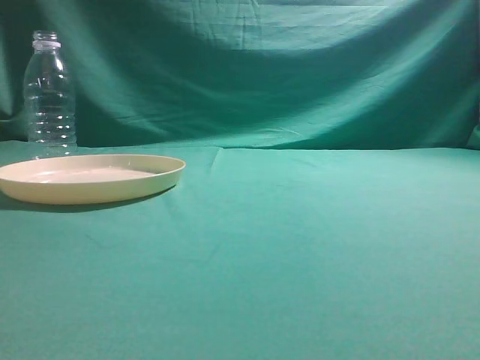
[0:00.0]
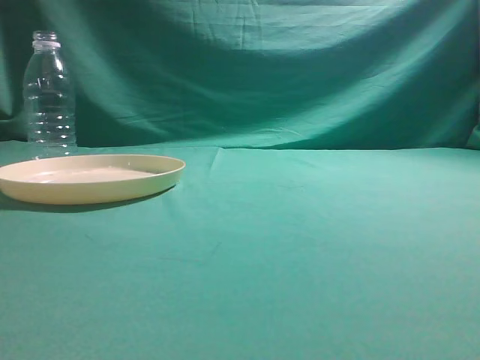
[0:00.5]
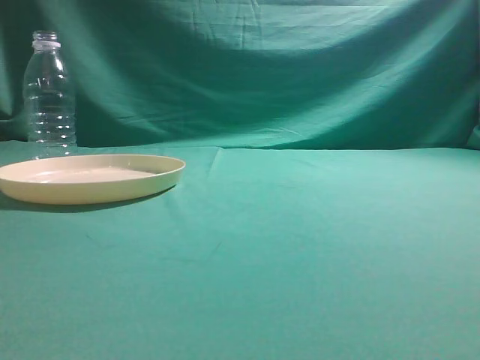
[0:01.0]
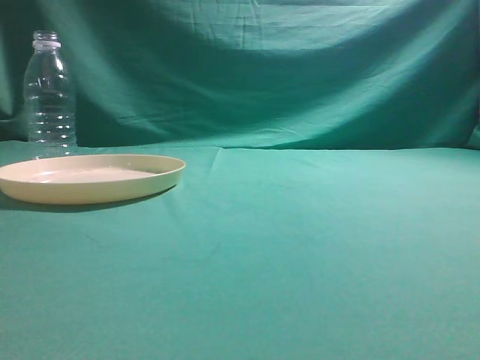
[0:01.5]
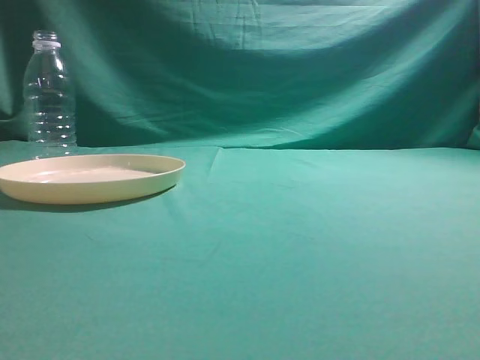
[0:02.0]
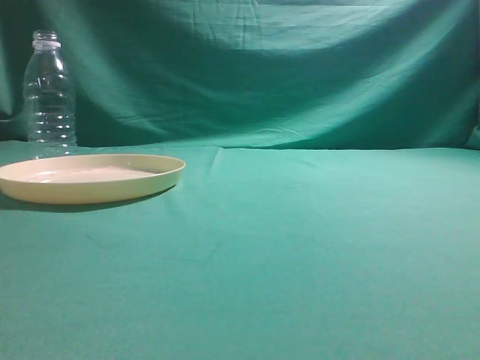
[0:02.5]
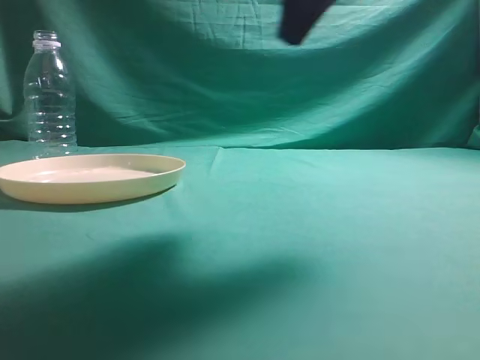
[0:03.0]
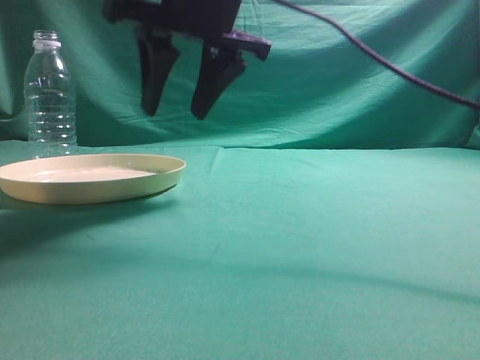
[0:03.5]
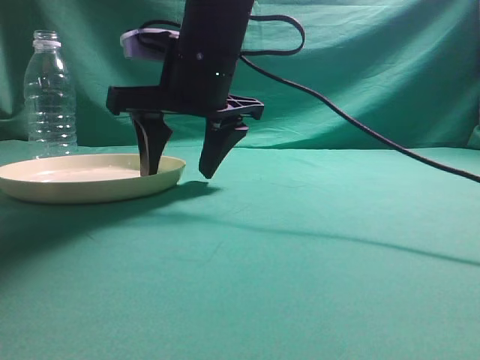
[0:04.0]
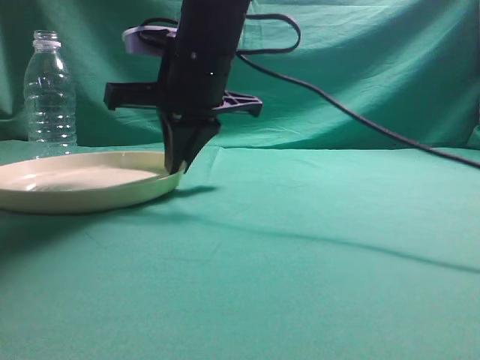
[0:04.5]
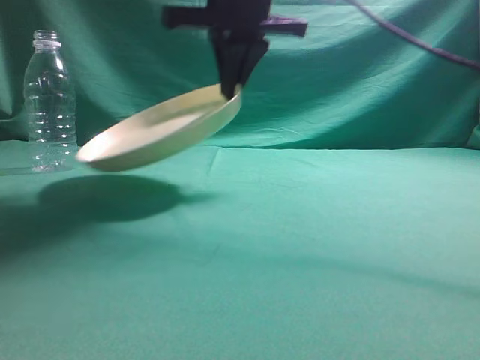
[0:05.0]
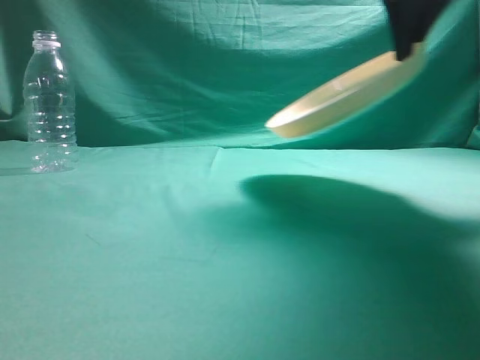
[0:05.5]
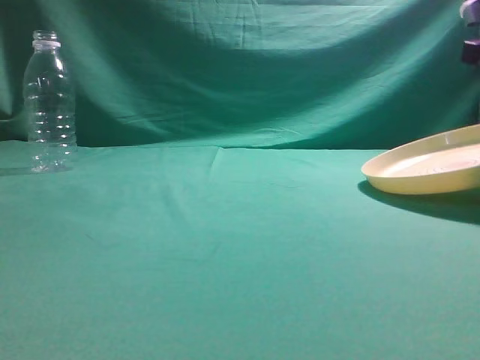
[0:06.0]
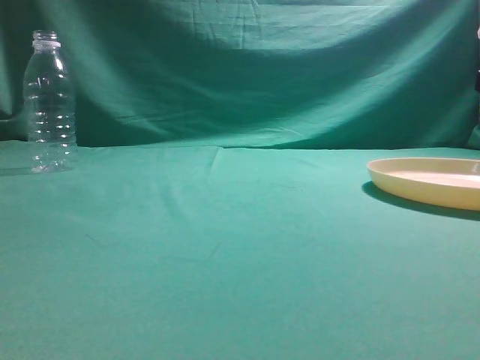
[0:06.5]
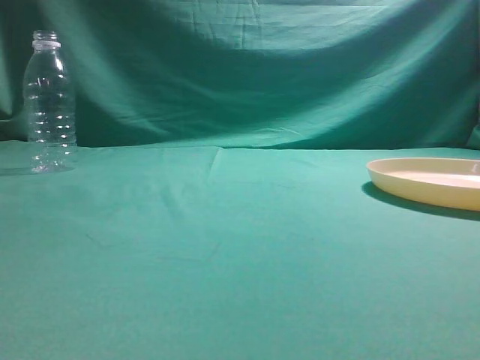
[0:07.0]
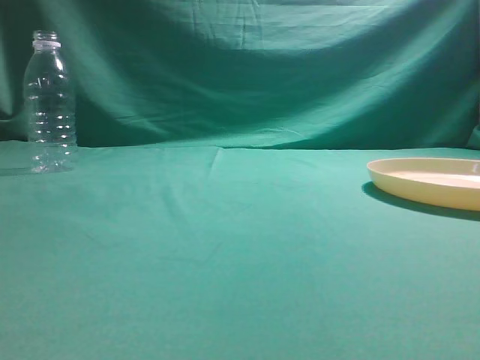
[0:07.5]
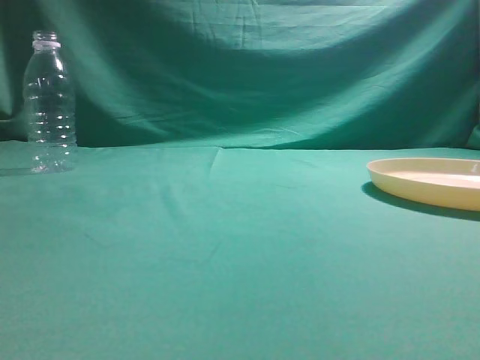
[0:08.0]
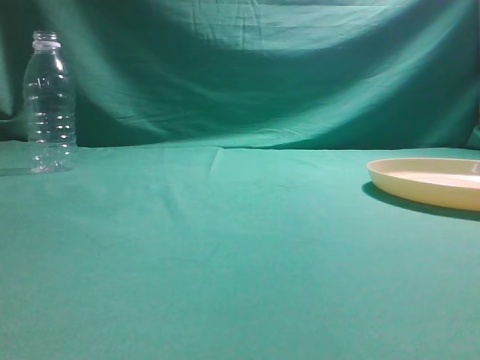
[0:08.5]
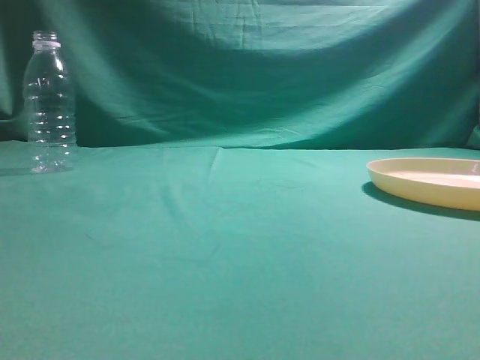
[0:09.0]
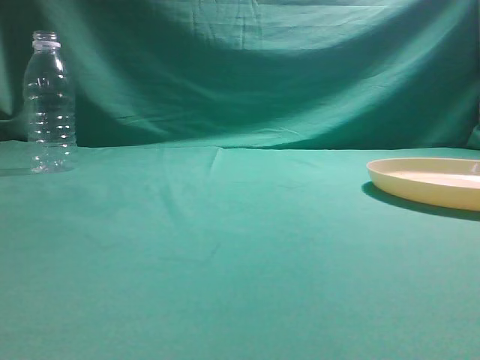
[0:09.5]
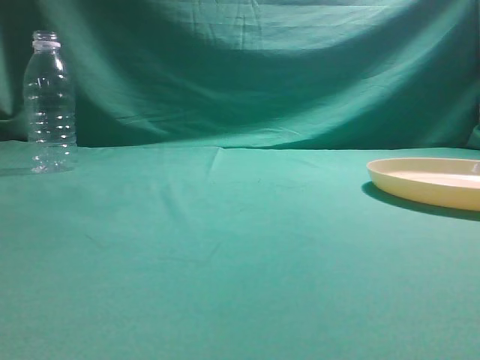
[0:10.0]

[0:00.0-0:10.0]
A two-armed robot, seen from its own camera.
Step, 0:00.0 to 0:05.0: Pick the container that can hold fruits.
Step, 0:05.5 to 0:07.0: Move the picked object to the right side of the table.
0:02.0 to 0:04.0: The right gripper heads to the left and forward, covering approximately 40 cm, and opens up.
0:04.0 to 0:06.0: The right gripper is displaced to the right by roughly 30 cm, and closes up.
0:06.0 to 0:08.0: The right gripper goes about 35 cm backward and upward, and opens, then closes again.
